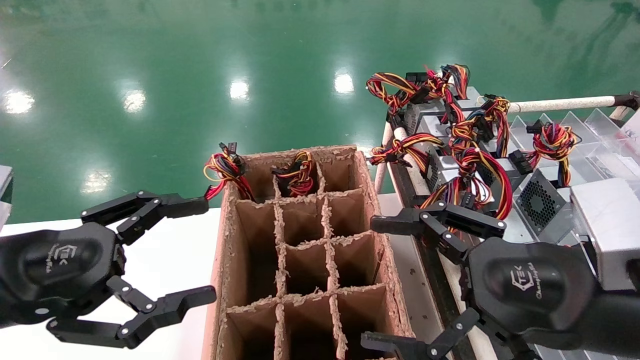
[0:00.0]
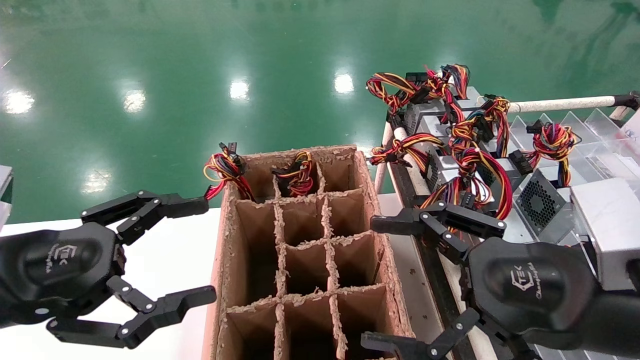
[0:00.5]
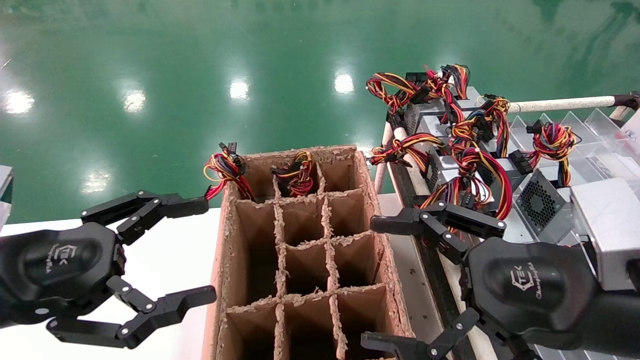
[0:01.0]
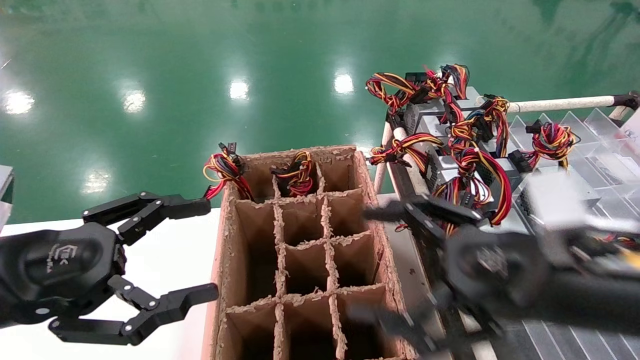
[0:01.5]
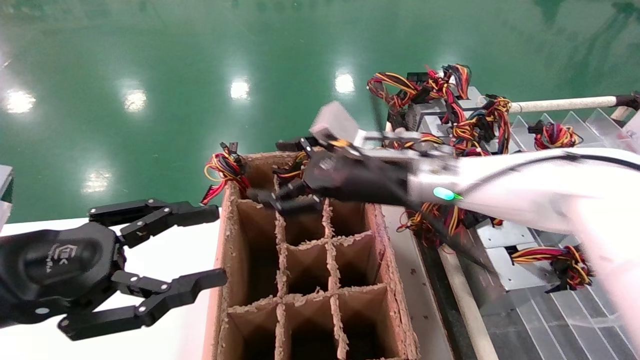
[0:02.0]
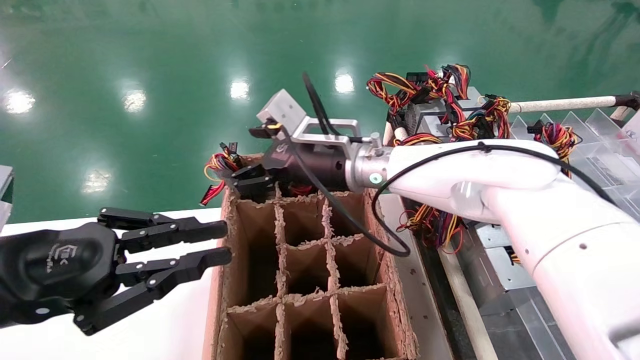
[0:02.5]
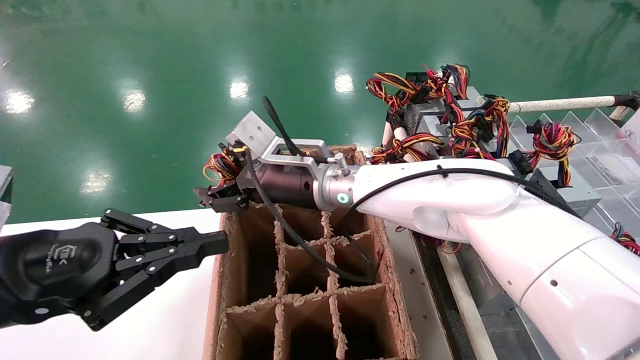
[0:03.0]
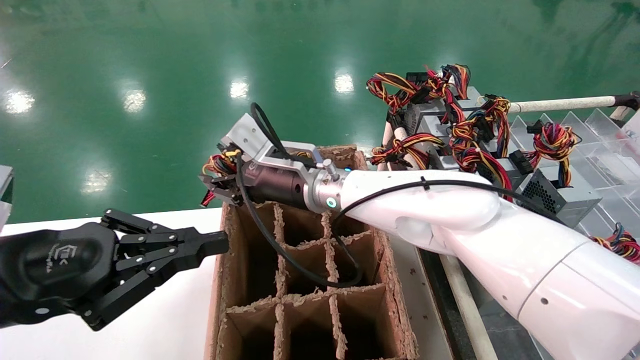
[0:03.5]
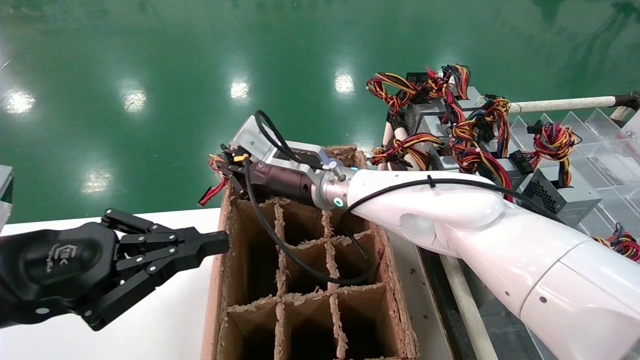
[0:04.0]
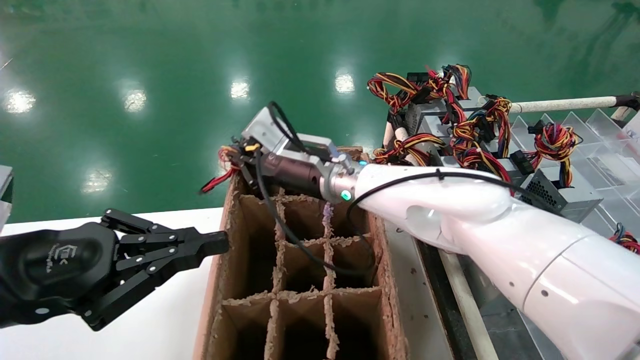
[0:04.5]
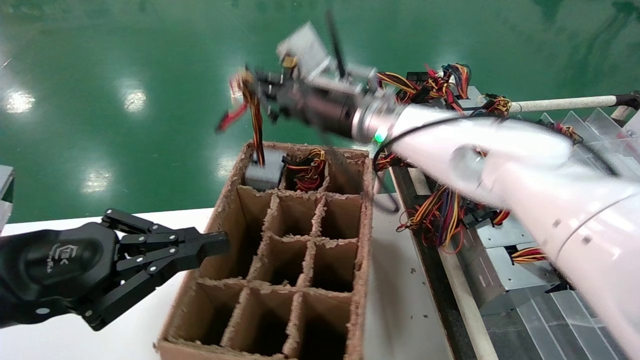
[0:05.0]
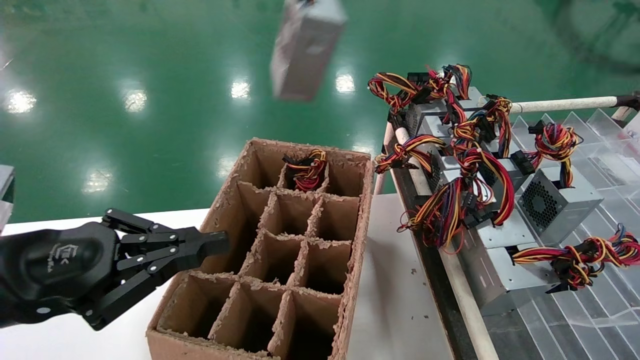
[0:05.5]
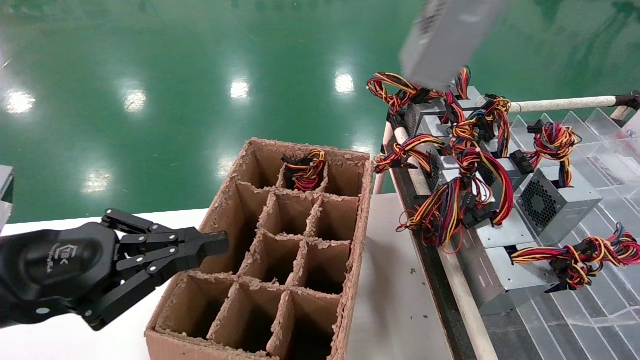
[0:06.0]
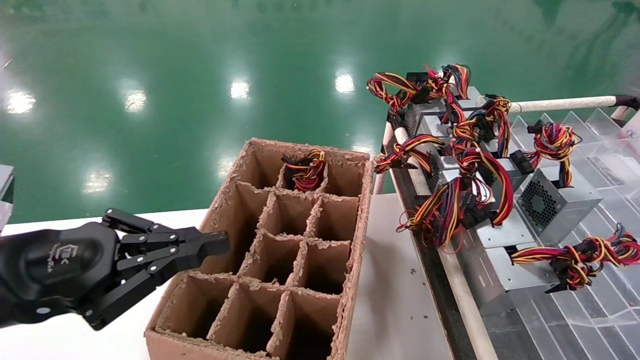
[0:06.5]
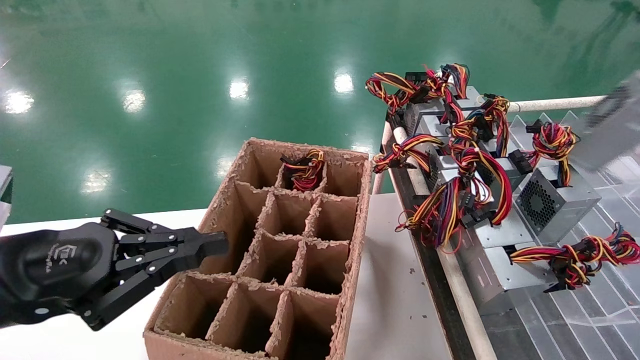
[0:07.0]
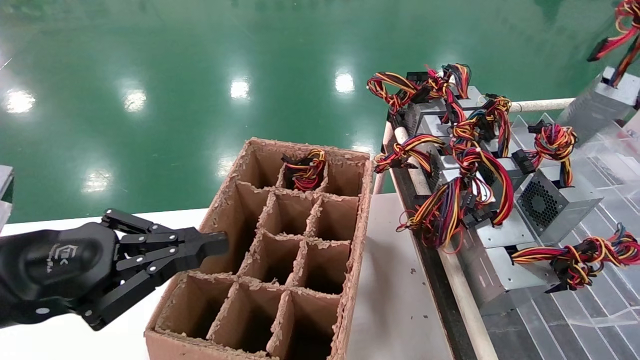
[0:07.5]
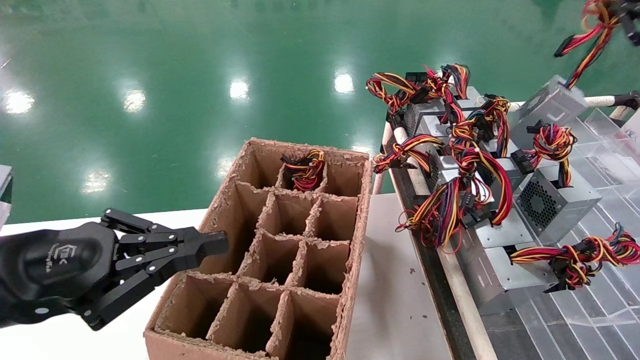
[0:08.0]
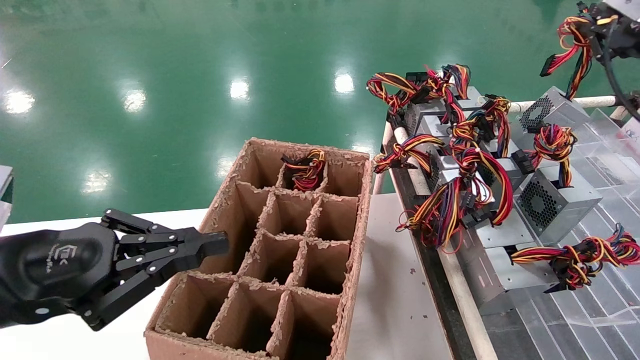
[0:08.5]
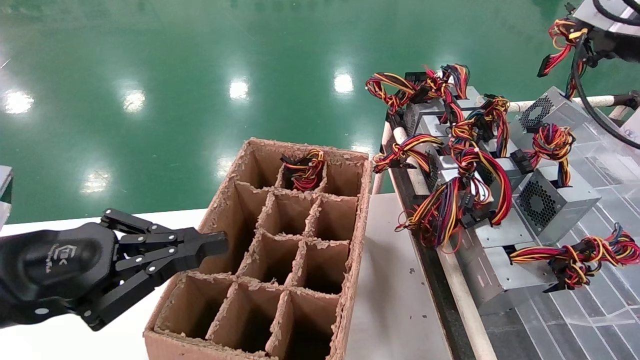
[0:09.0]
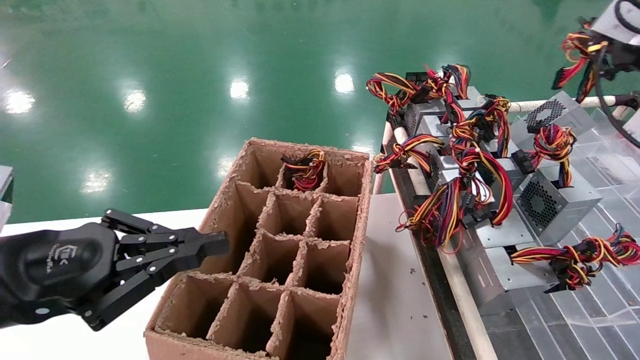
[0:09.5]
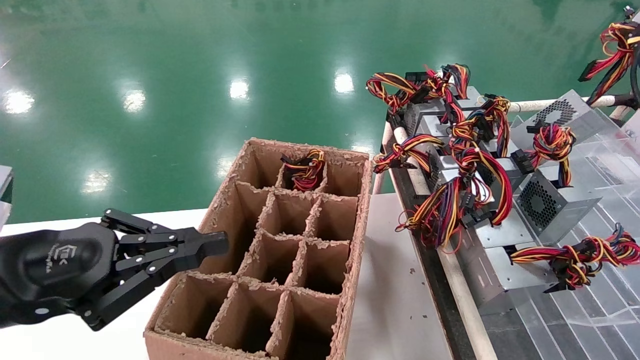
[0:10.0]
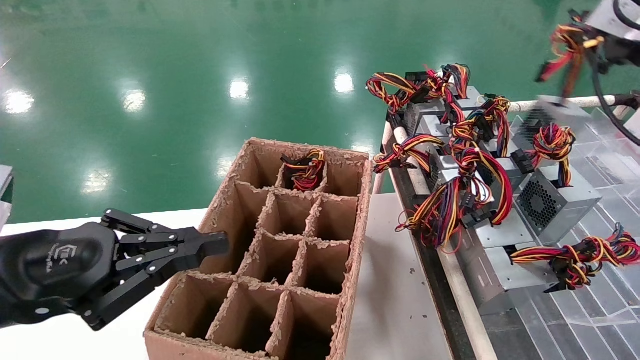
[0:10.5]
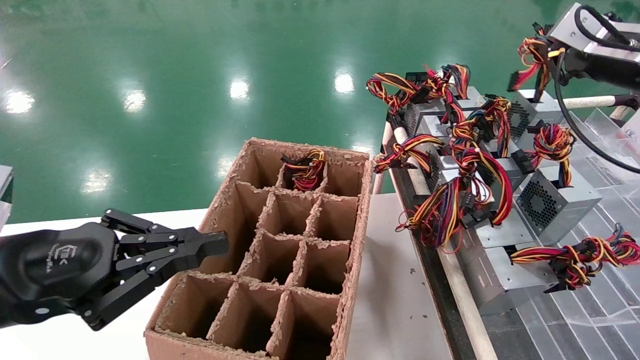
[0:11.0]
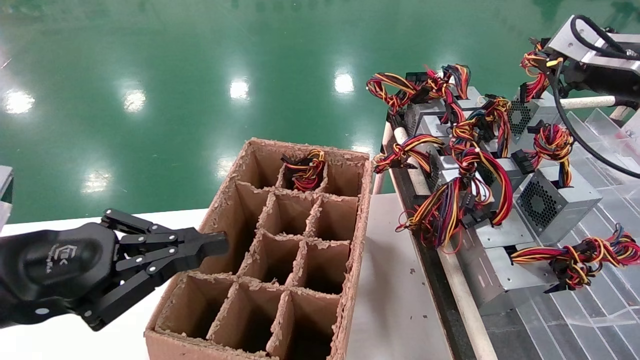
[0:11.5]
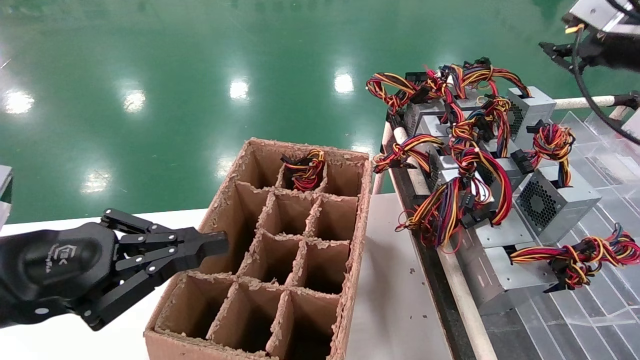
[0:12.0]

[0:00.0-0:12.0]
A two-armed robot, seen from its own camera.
Step, 0:02.0 to 0:04.0: Grab the main unit power supply from the containment box.
0:00.0 to 0:02.0: The right gripper goes about 25 cm forward and to the left.
0:02.0 to 0:04.0: The left gripper closes; the right gripper goes about 10 cm to the left, and closes its fingers.
0:04.0 to 0:06.0: The right gripper shifts about 50 cm upward, to the right and backward.
0:06.0 to 0:08.0: The right gripper goes approximately 30 cm forward, to the right and downward.
0:08.0 to 0:10.0: The grippers stay close to where they were, moving slightly.
0:10.0 to 0:12.0: The right gripper shifts about 5 cm to the left.

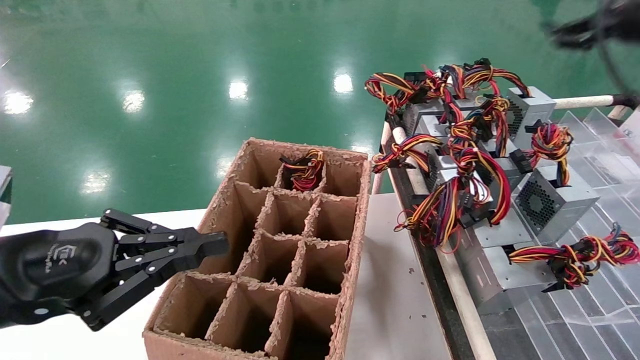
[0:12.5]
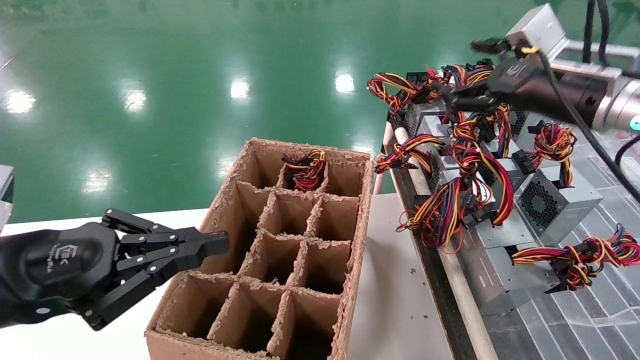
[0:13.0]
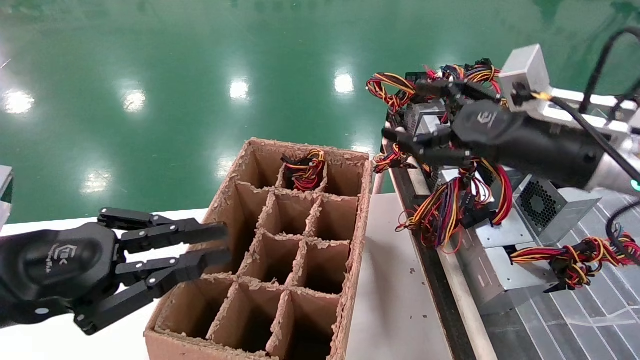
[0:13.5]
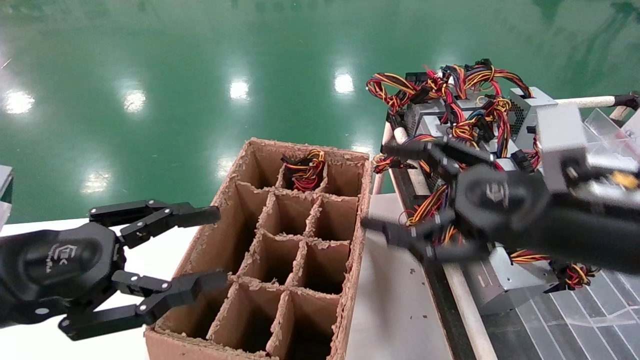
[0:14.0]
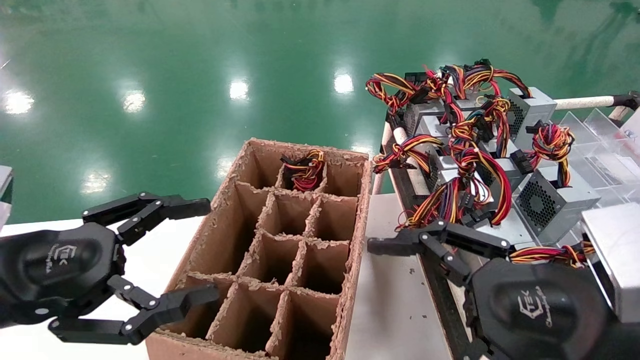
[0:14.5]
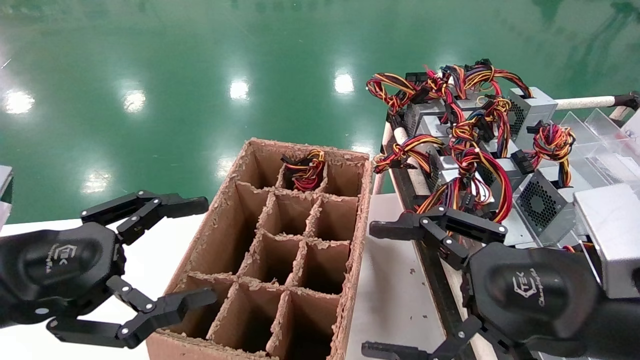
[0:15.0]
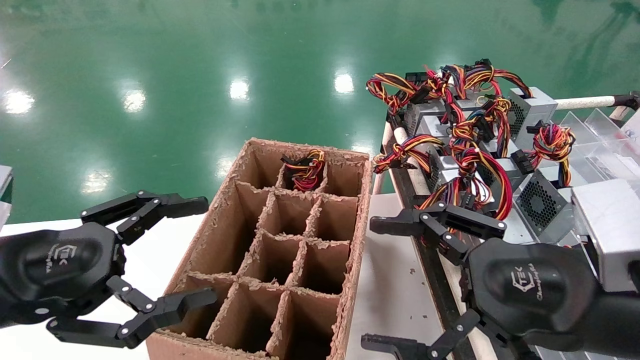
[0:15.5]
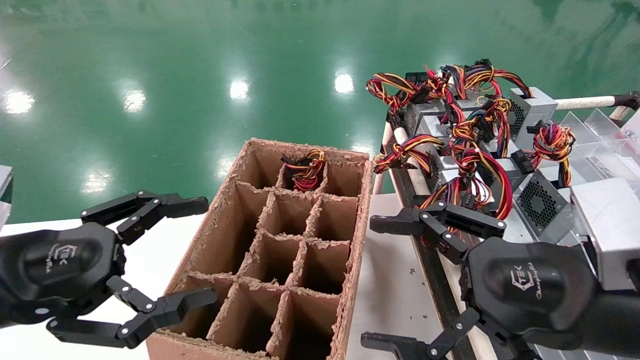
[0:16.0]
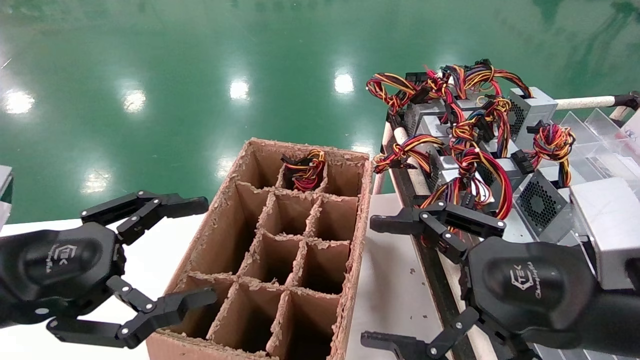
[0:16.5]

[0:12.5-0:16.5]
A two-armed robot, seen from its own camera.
0:12.5 to 0:14.5: The left gripper opens. The right gripper goes roughly 35 cm backward, downward and to the left, and opens.
0:14.5 to 0:16.5: The two grippers keep their place.
